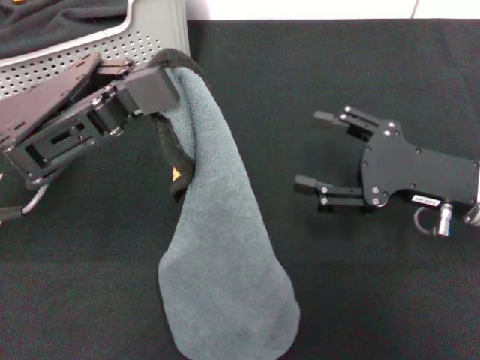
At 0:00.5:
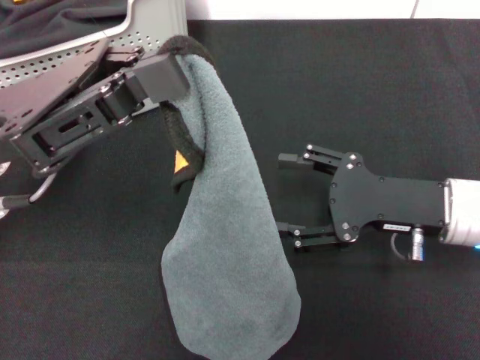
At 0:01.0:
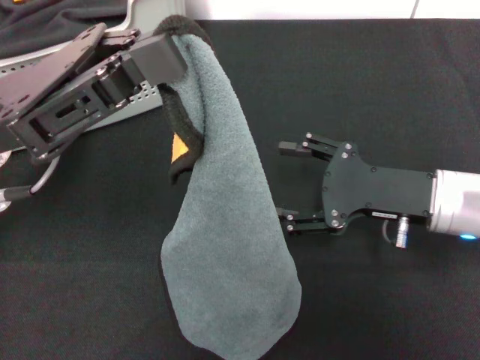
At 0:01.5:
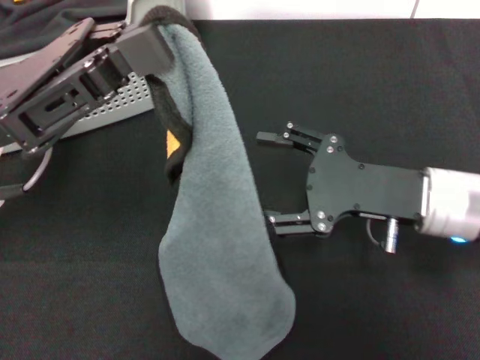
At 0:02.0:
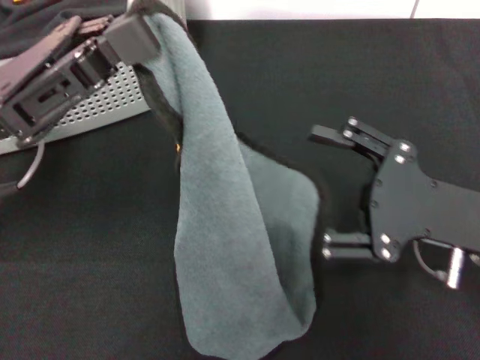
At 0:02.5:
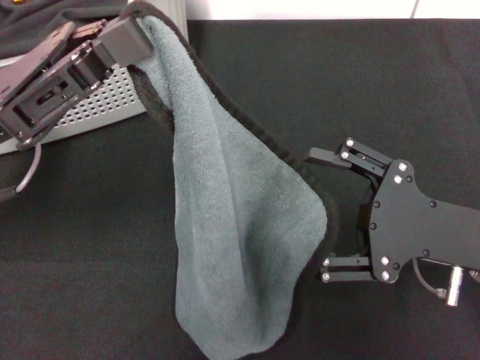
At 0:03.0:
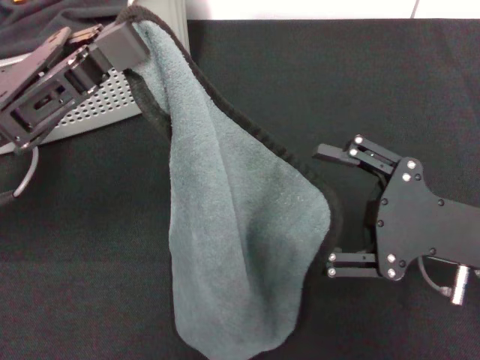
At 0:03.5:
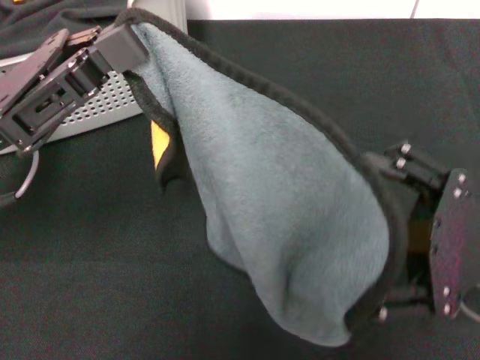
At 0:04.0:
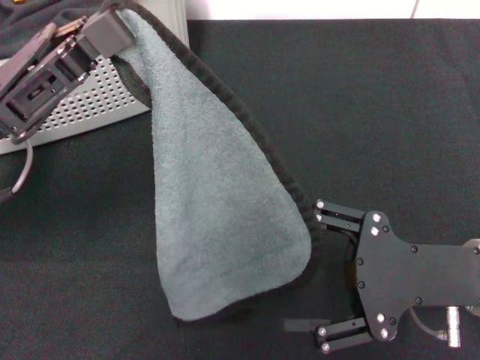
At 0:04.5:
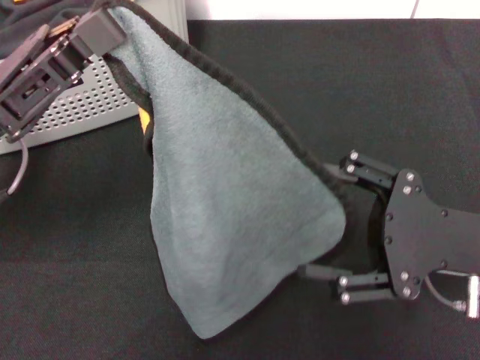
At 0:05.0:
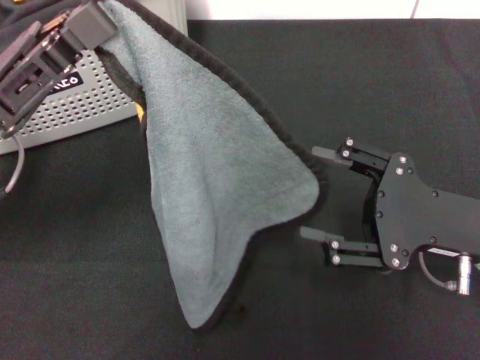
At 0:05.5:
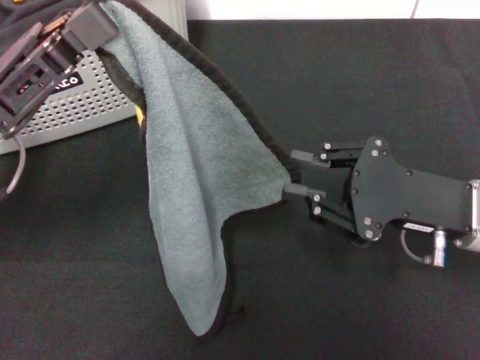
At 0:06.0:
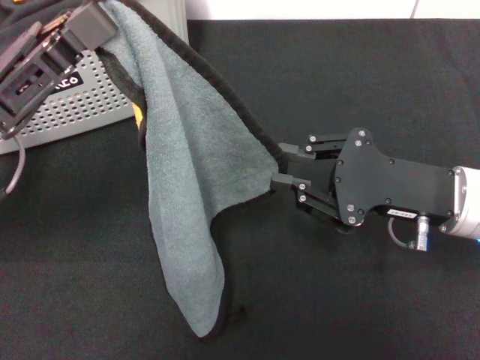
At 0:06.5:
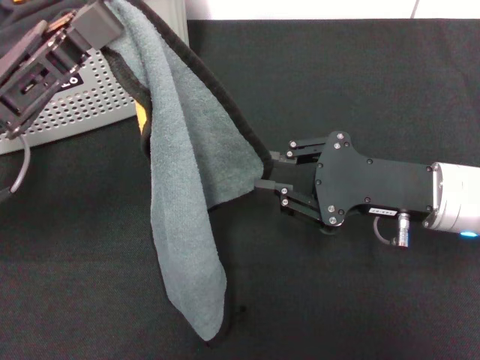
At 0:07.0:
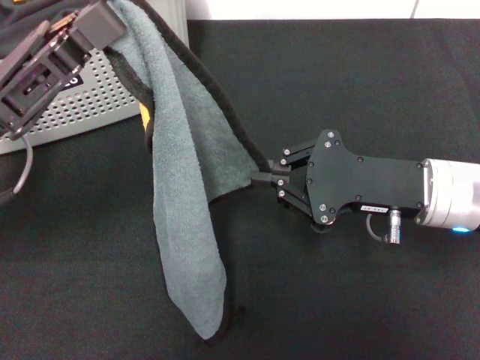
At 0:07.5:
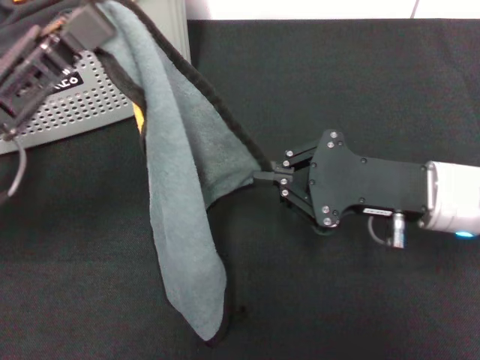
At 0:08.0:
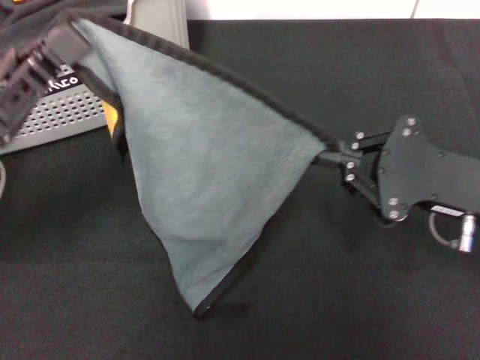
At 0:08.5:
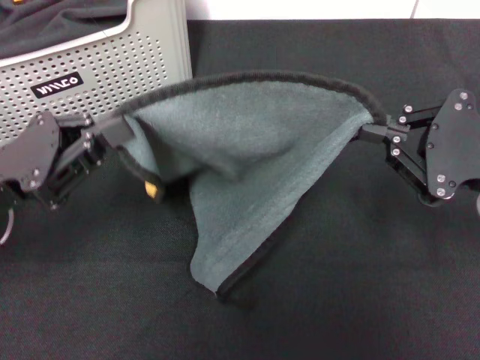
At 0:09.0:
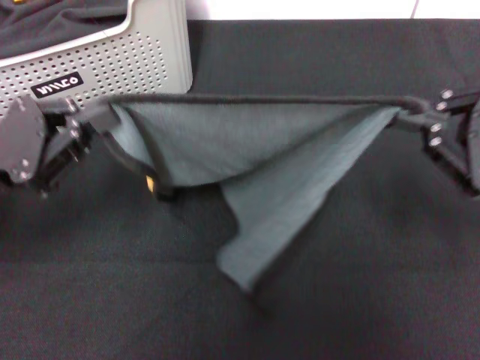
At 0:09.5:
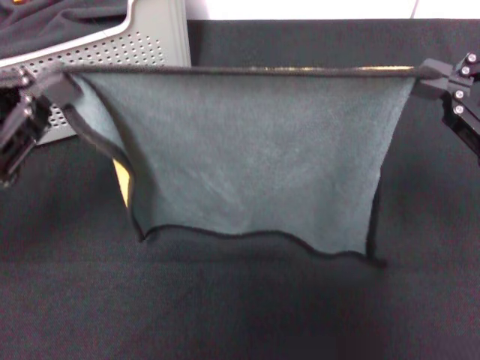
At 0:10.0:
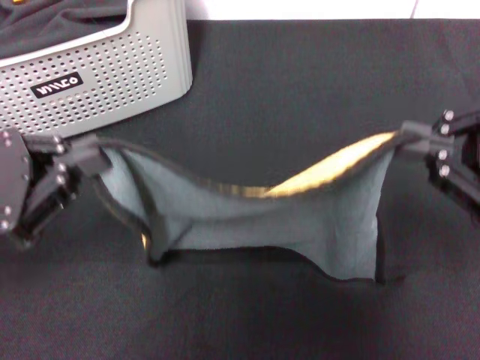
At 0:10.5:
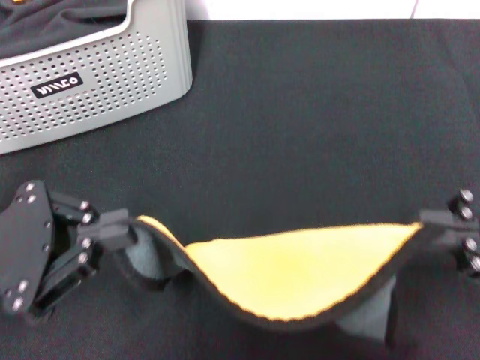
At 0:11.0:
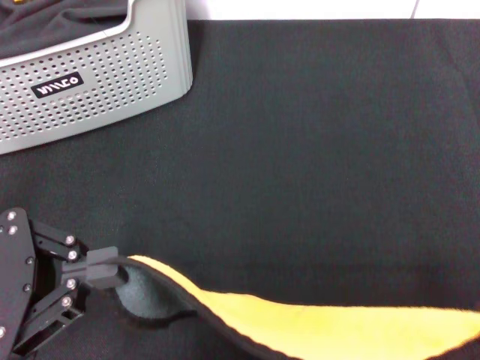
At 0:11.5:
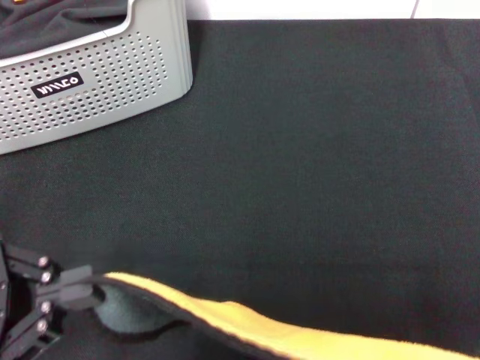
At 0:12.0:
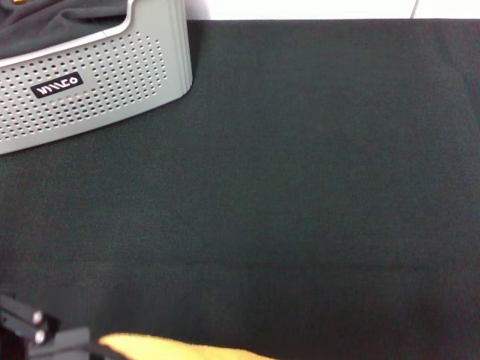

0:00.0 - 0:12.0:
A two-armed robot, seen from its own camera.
Task of the whole recording: pick up the towel from the storage box and lay it flat on the black tablecloth.
Step, 0:00.0 - 0:07.0: Spread the towel flat with the left gripper.
0:04.0 - 0:06.0: The right gripper ends up some 5 cm from where it was, and closes.
0:08.0 - 0:10.0: The right gripper heads upward, covering some 5 cm.
0:10.0 - 0:12.0: The left gripper moves backward, approximately 10 cm. Meanwhile the right gripper moves backward, about 5 cm.

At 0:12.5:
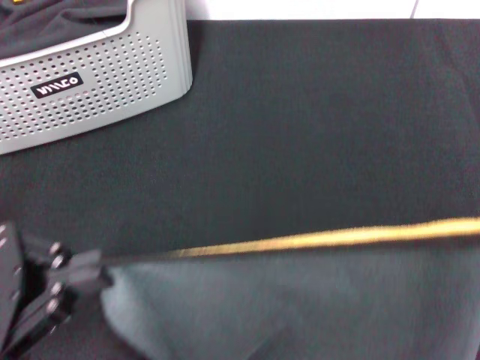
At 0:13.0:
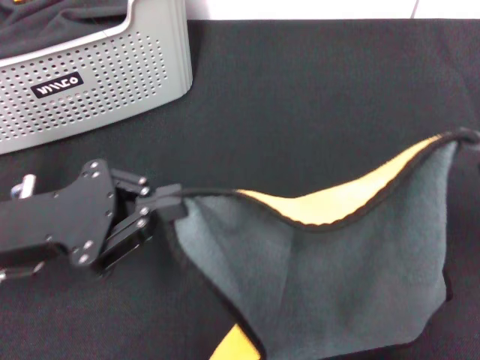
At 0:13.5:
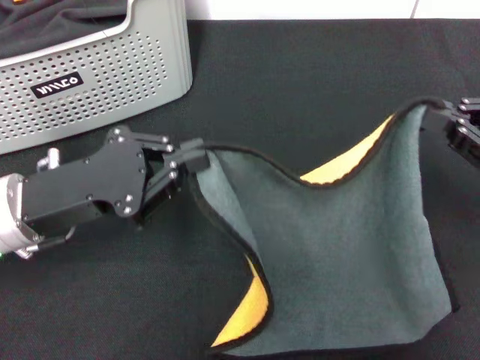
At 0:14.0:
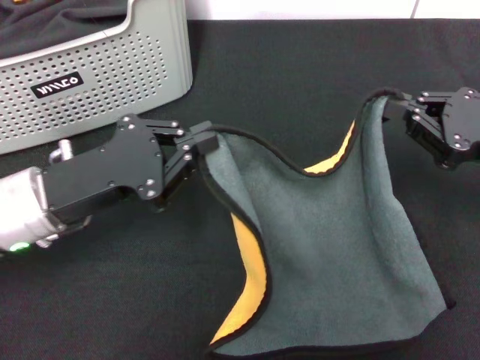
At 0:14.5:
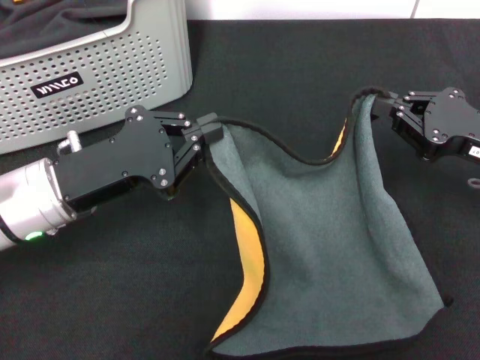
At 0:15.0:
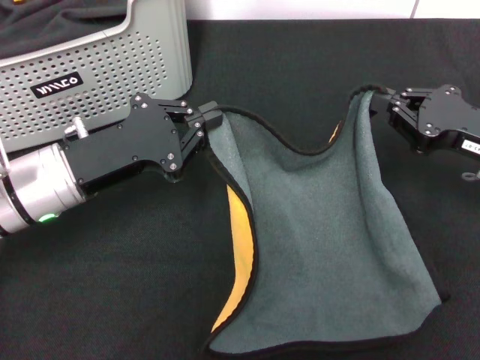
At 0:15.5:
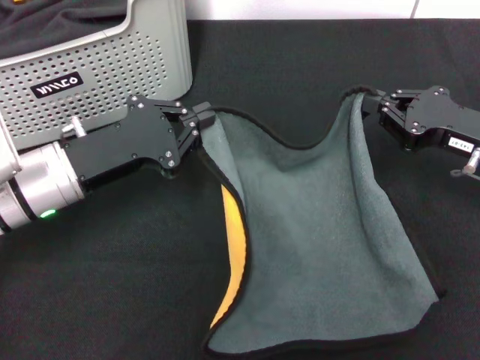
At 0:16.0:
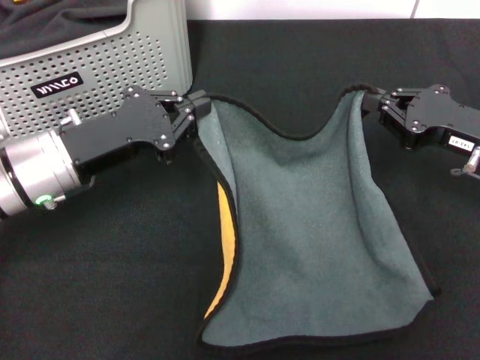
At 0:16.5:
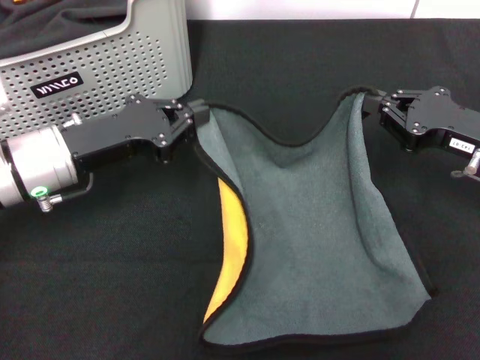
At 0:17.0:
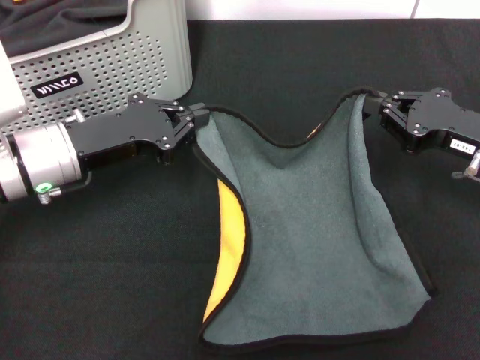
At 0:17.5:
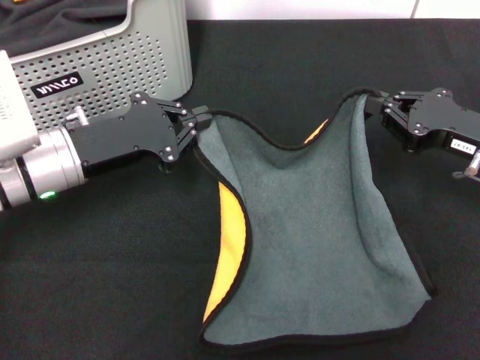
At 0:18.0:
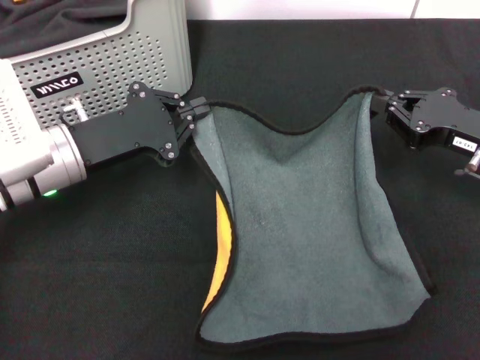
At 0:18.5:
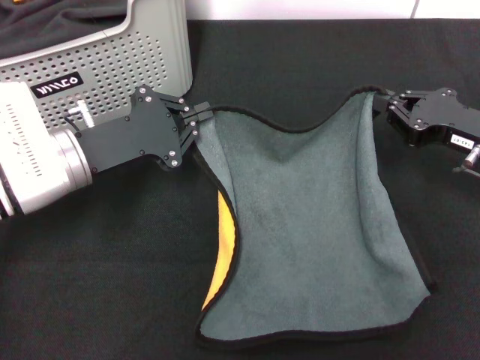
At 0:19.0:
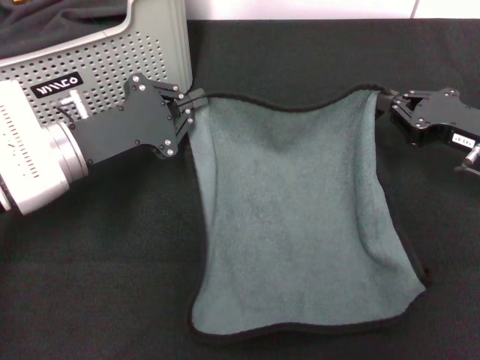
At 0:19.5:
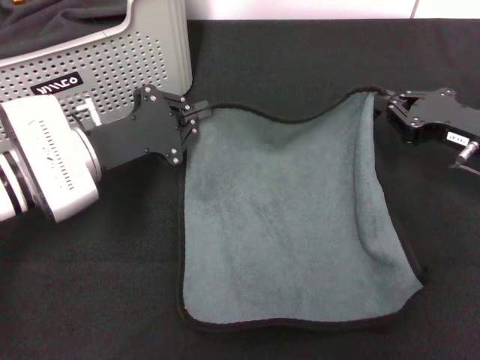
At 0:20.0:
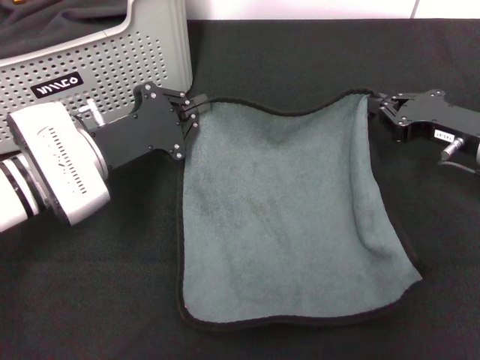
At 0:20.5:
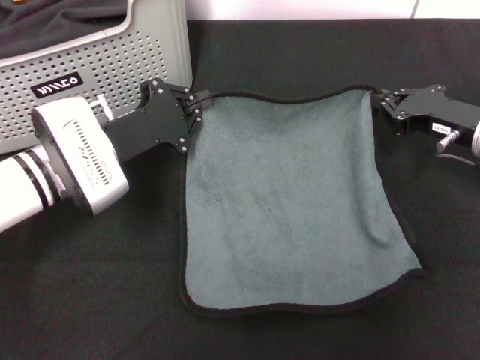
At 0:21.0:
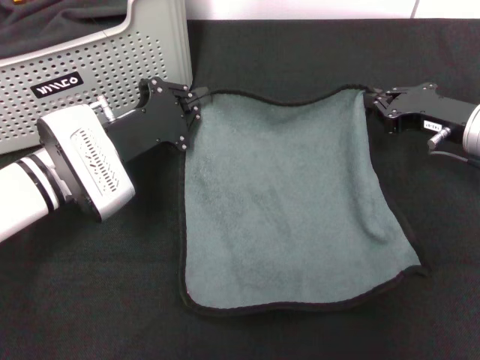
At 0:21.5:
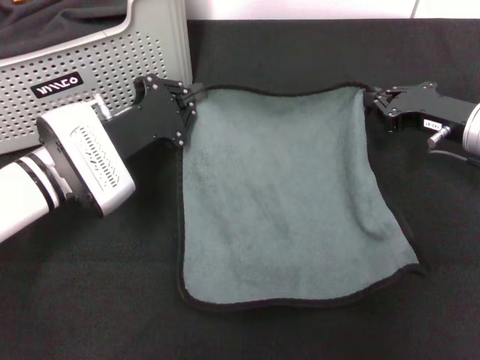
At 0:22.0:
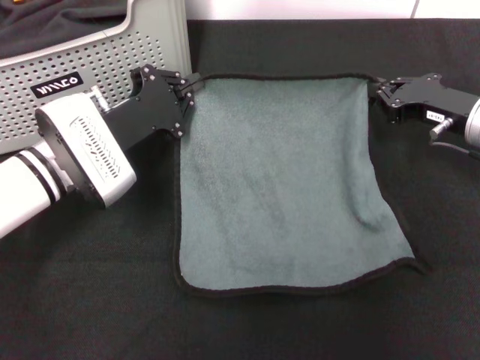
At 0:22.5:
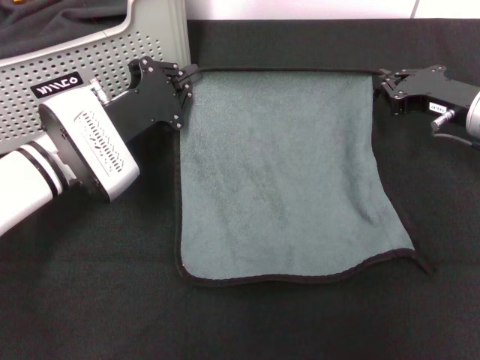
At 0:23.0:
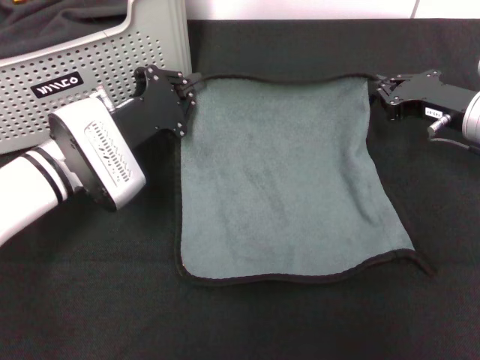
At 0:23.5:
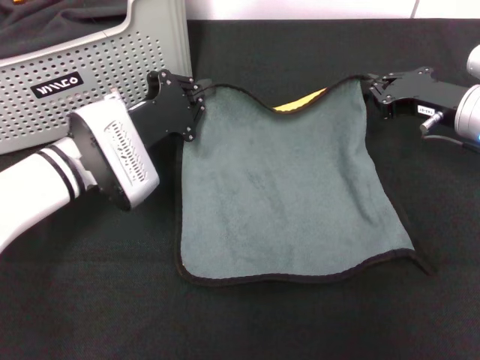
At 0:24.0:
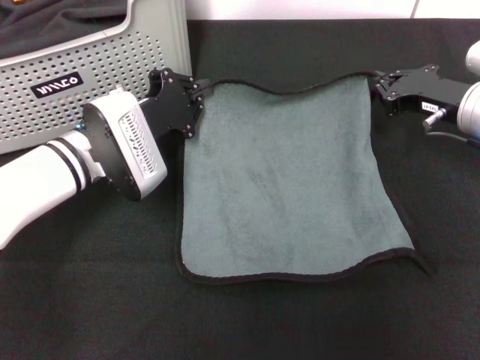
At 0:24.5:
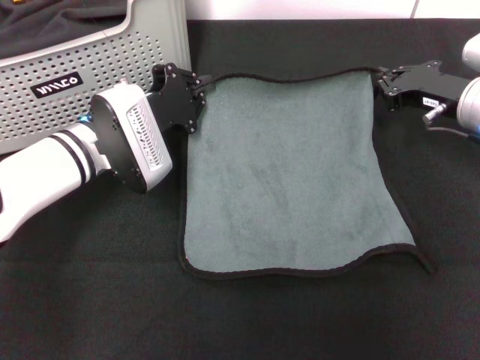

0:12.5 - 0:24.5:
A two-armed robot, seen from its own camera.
Task of the whole recording: pick up the towel from the storage box and lay it flat on the black tablecloth.
0:12.5 - 0:14.5: The right gripper travels forward and downward by approximately 10 cm, while the left gripper shifts approximately 15 cm forward and to the right.
0:22.5 - 0:24.5: The grippers move only a little.

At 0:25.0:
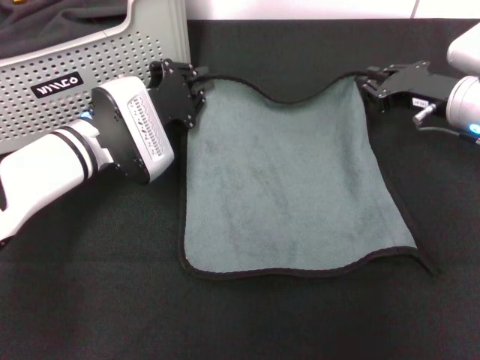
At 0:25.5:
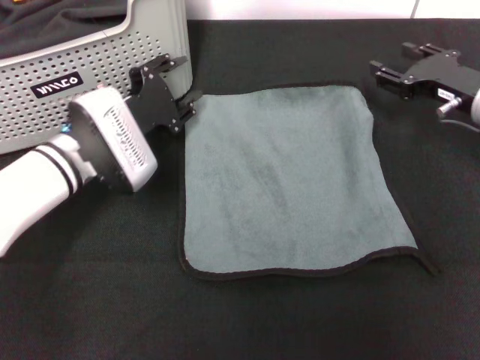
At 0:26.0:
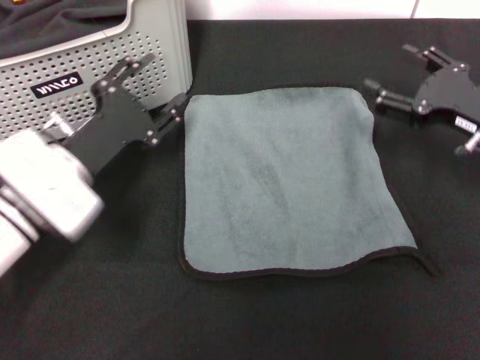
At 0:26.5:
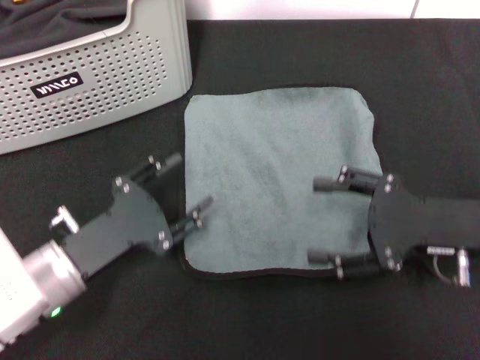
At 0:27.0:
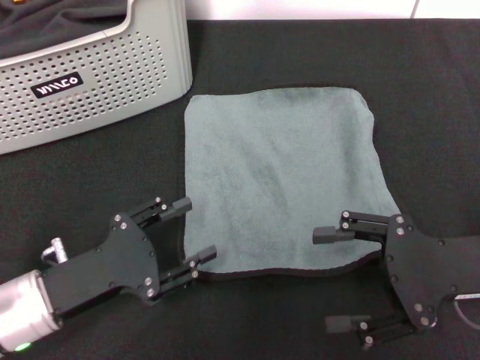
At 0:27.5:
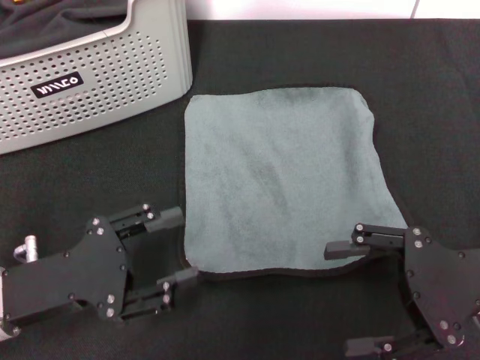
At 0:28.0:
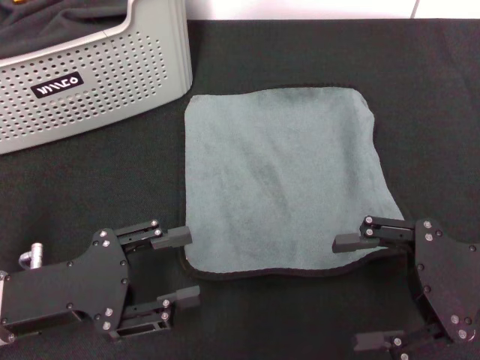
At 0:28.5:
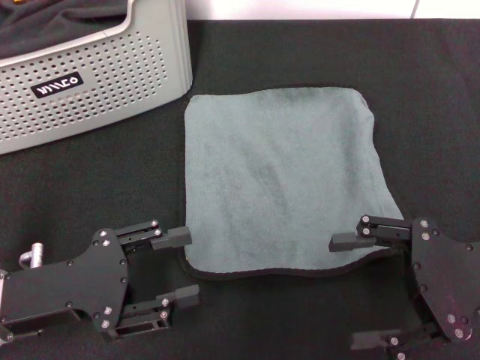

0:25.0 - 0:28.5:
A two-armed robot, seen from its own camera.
Task of the whole recording: pick up the towel from the storage box and lay it flat on the black tablecloth.
0:25.0 - 0:27.0: The grippers both shift backward by roughly 15 cm. The left gripper opens. Meanwhile the right gripper opens its fingers.
